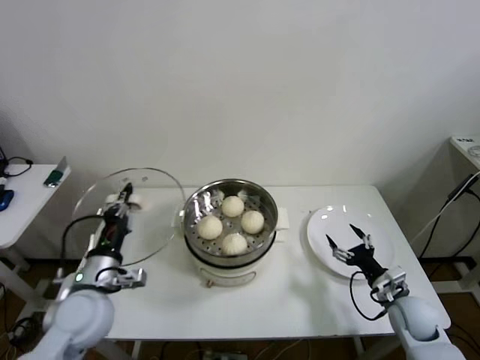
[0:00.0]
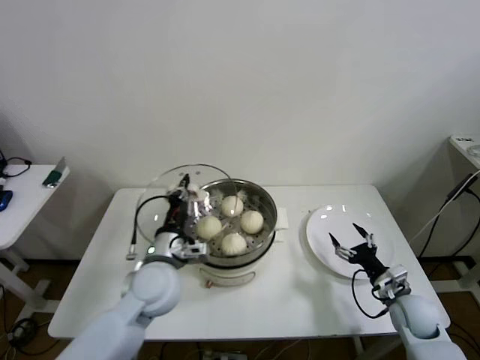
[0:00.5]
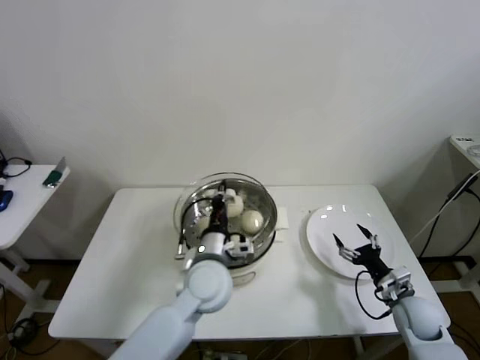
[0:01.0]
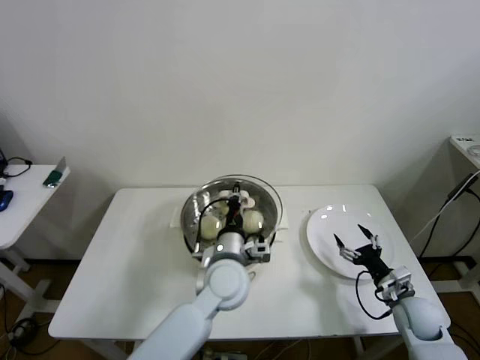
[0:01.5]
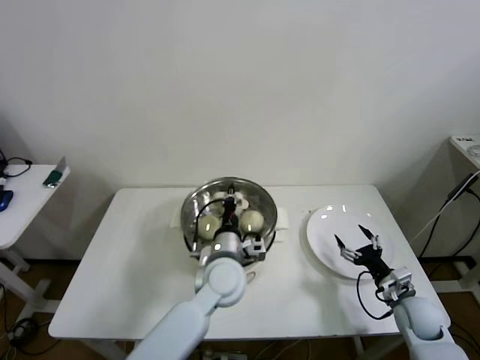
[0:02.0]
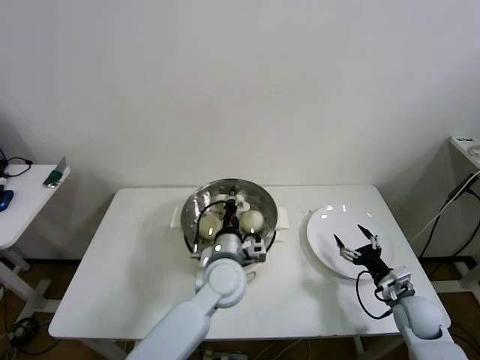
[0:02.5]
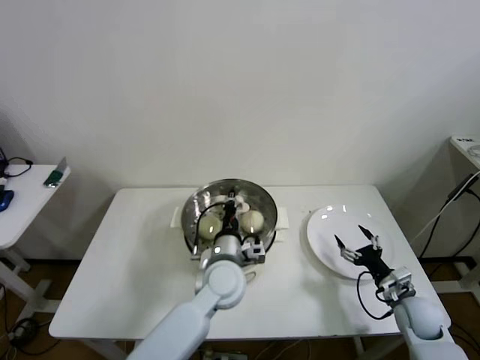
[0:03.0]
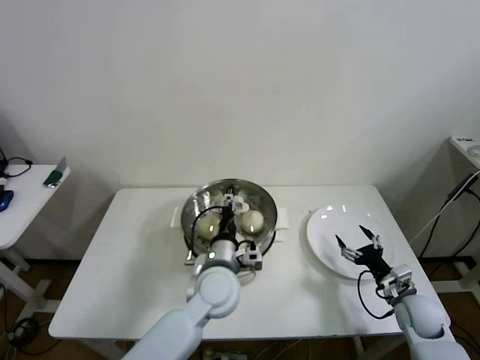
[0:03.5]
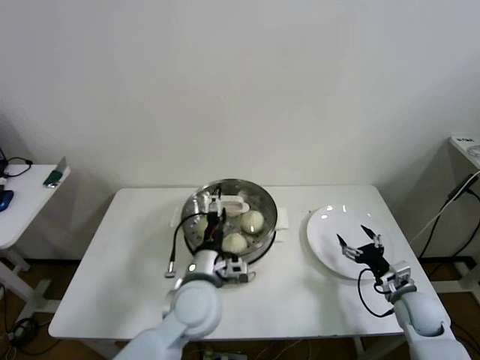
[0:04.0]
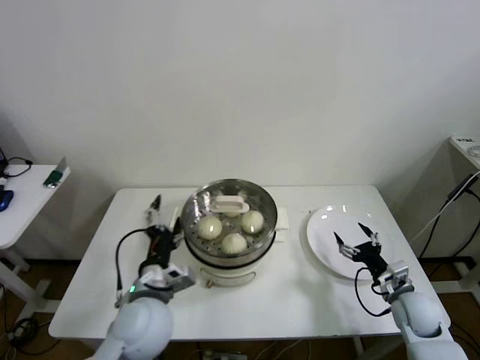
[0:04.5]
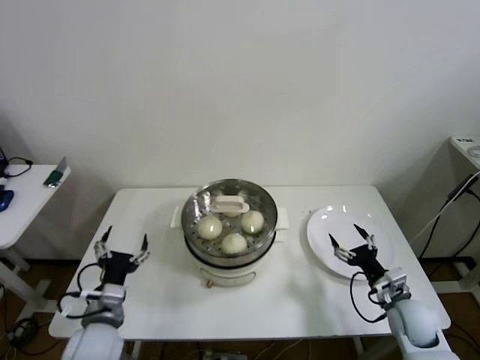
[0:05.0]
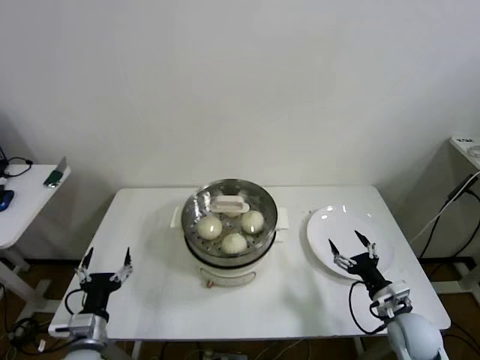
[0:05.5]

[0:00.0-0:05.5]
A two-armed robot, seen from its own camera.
Step, 0:00.0 to 0:04.0: Place the pot lid on the steamer with left gripper.
0:00.0 to 0:02.0: The left gripper heads to the right, covering some 25 cm.
0:02.0 to 0:03.5: The left gripper opens.
0:03.5 to 0:05.5: The left gripper travels to the left and backward by about 30 cm, and opens its fingers; the right gripper shifts by roughly 5 cm.
